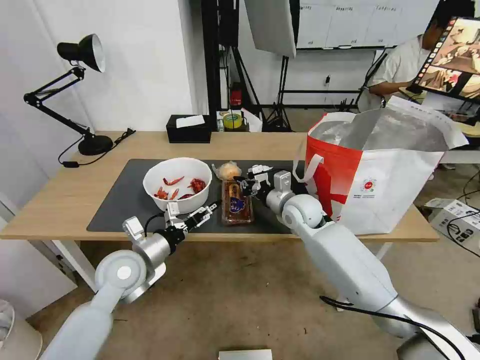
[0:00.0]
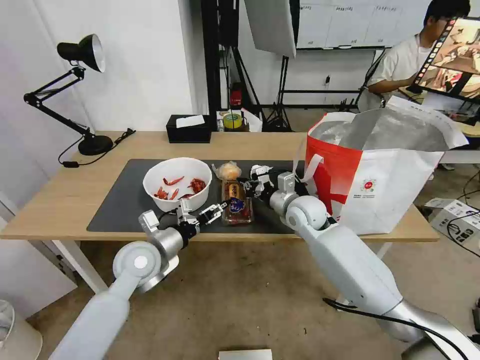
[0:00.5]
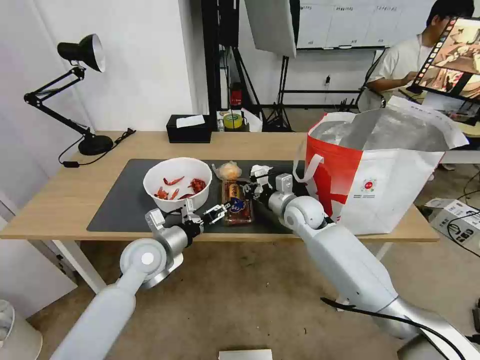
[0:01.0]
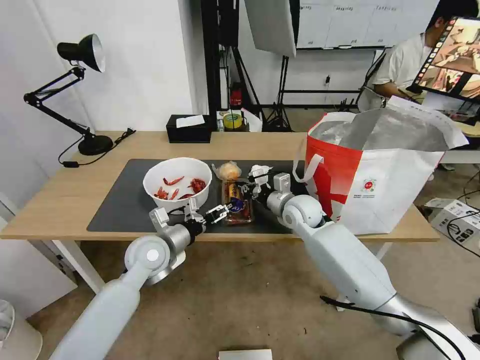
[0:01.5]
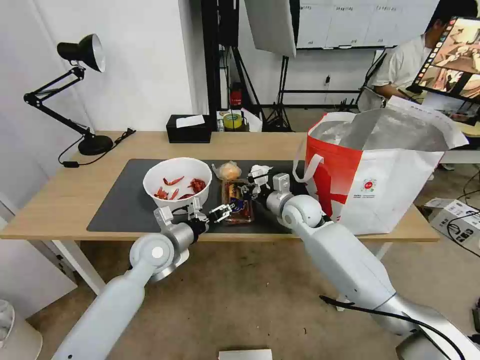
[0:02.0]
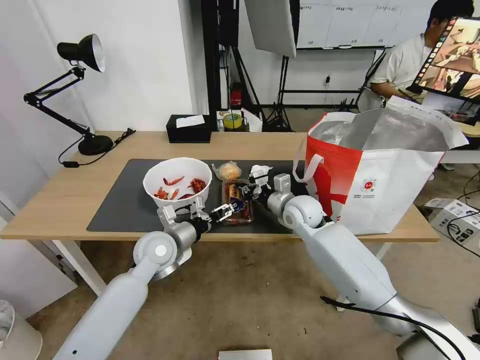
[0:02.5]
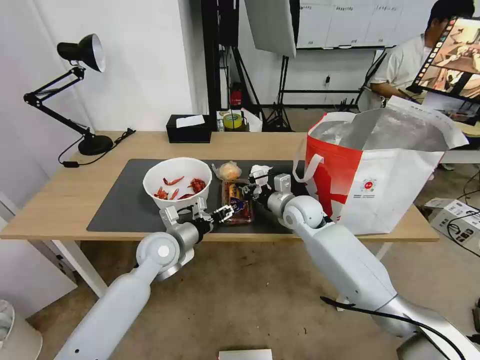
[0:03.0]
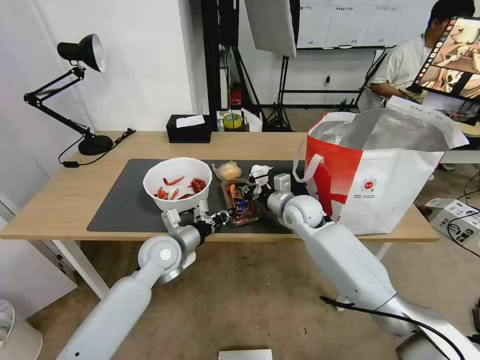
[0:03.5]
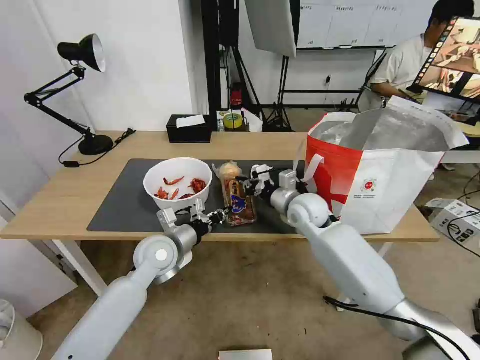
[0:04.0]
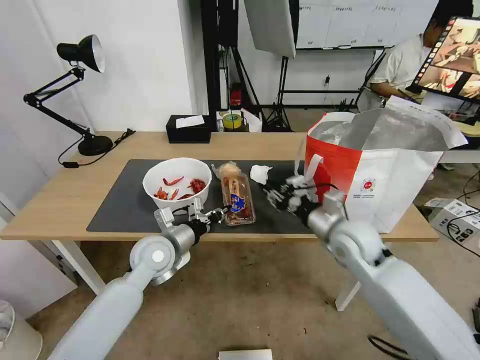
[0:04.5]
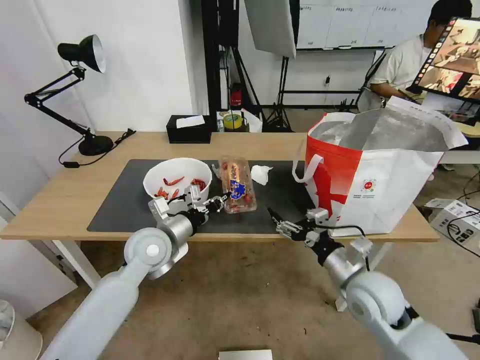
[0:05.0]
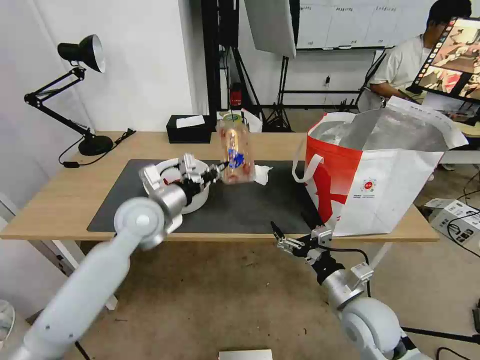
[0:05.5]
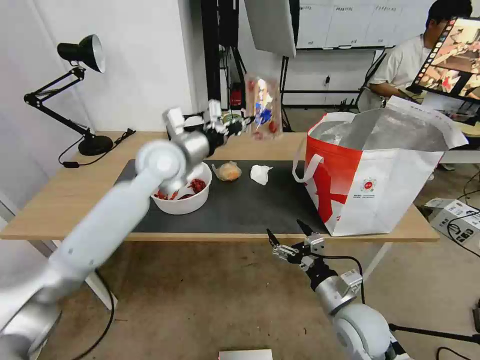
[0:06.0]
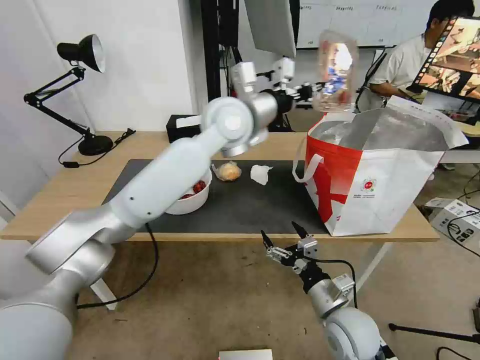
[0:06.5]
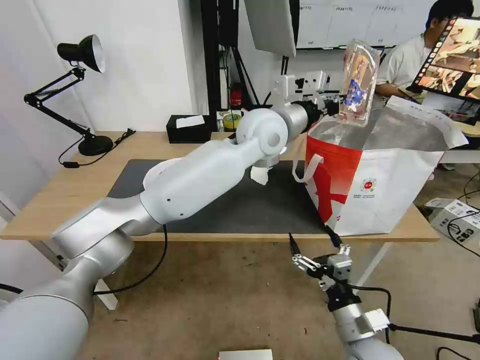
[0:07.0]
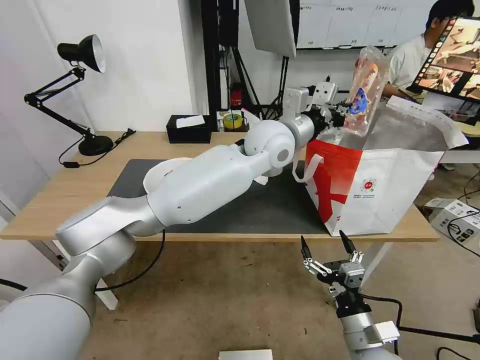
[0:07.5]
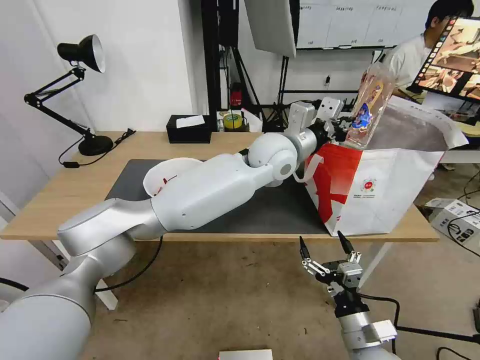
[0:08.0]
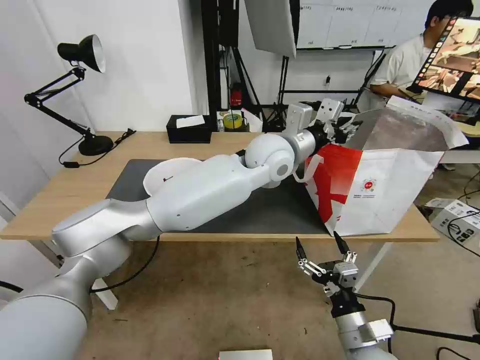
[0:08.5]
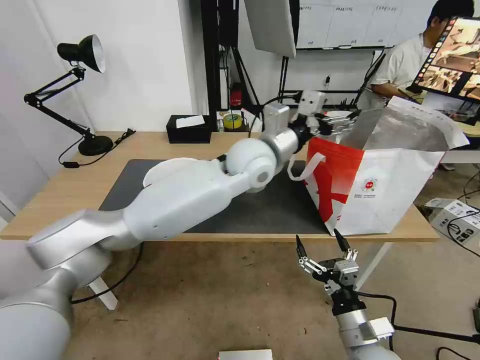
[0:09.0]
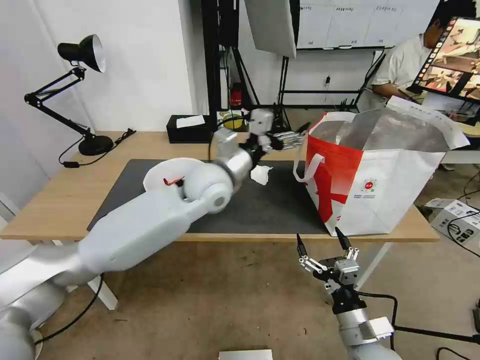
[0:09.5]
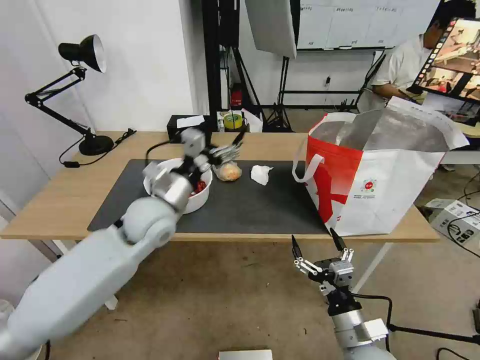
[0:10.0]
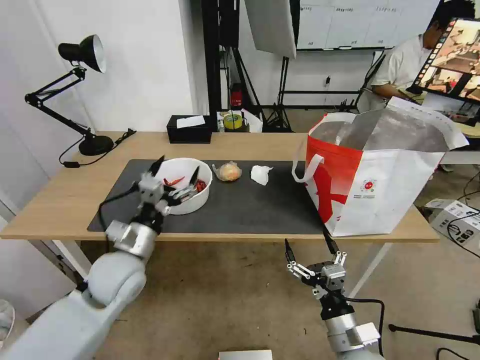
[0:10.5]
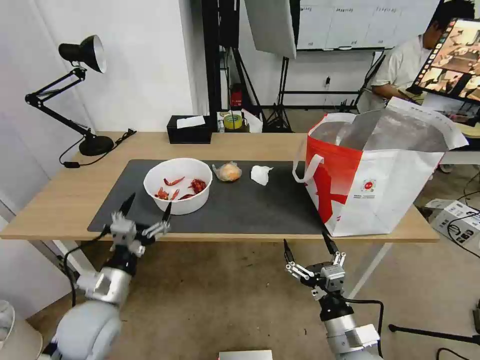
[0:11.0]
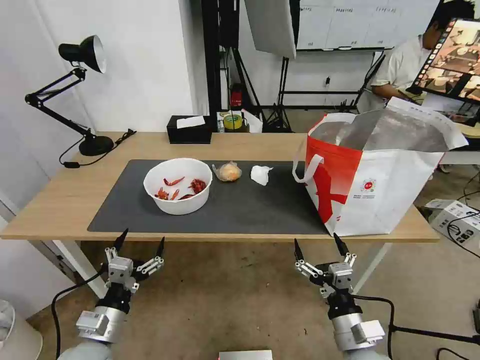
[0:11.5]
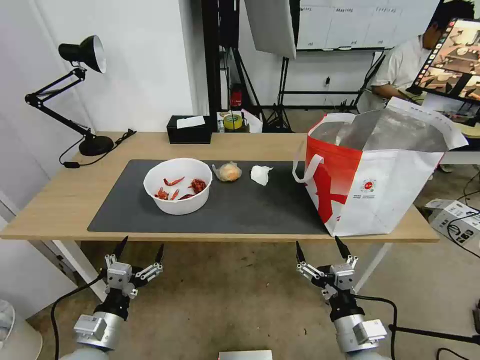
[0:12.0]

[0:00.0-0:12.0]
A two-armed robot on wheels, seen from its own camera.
Task of the whole recording: Pick up the trash from the table and place it into the takeout bag.
0:00.0 to 0:02.0: The left gripper heads forward, covering some 5 cm.
0:02.0 to 0:04.0: The left gripper closes.
0:04.0 to 0:06.0: The right gripper goes roughly 25 cm backward, and opens up. The left gripper travels upward and forward by roughly 20 cm.
0:06.0 to 0:08.0: The left gripper shifts some 20 cm to the right; the right gripper goes about 5 cm backward.
0:08.0 to 0:10.0: The left gripper moves to the left and backward, about 25 cm, and opens.
0:10.0 to 0:12.0: The left gripper travels backward, downward and to the left by approximately 30 cm.

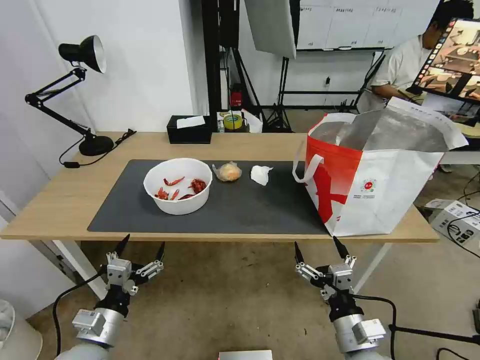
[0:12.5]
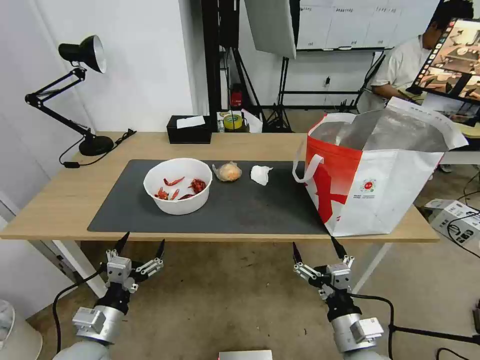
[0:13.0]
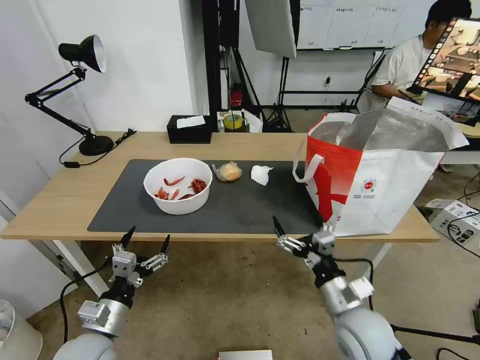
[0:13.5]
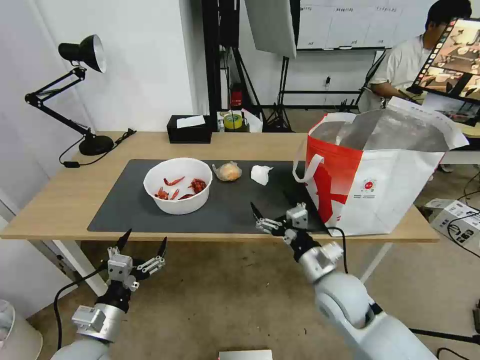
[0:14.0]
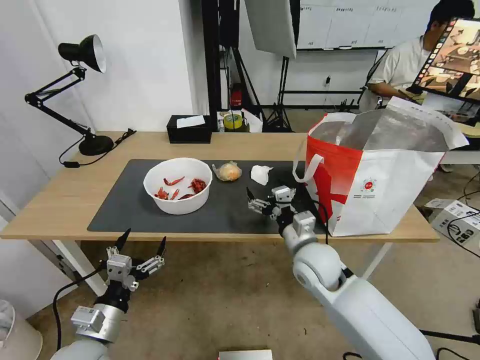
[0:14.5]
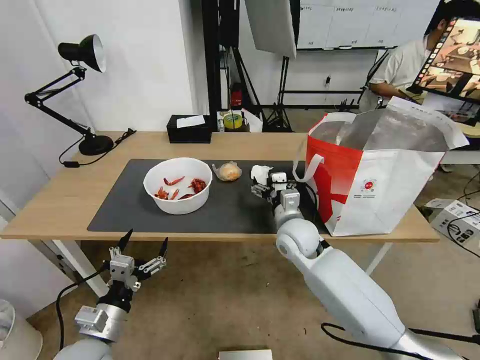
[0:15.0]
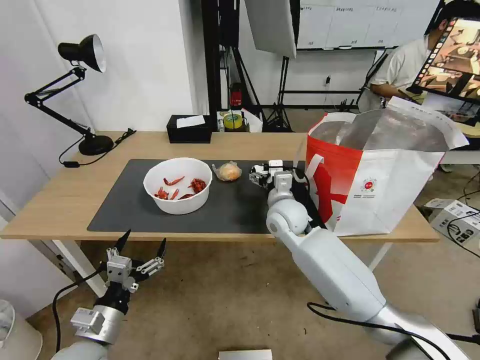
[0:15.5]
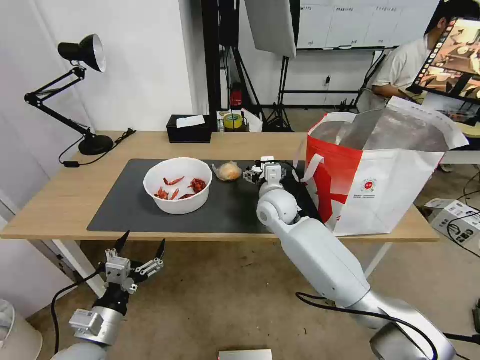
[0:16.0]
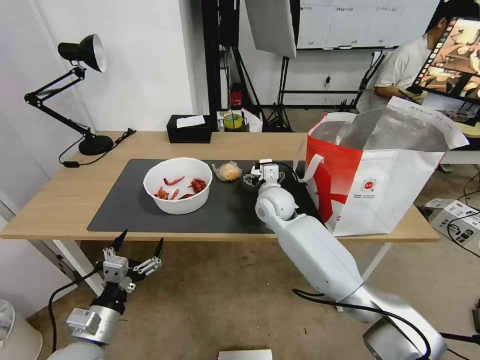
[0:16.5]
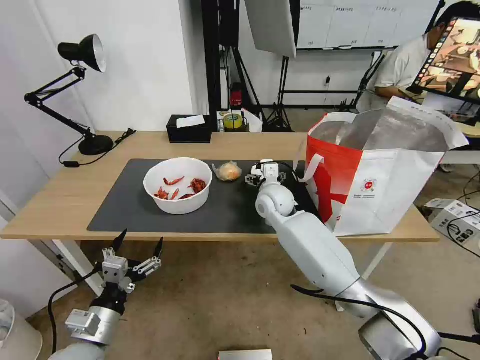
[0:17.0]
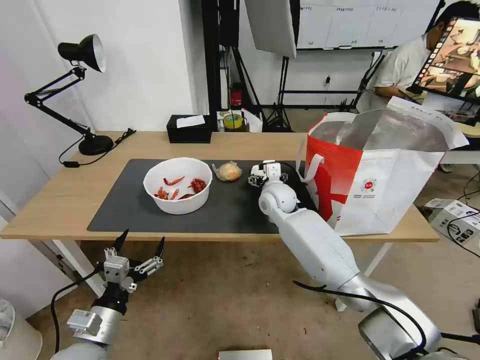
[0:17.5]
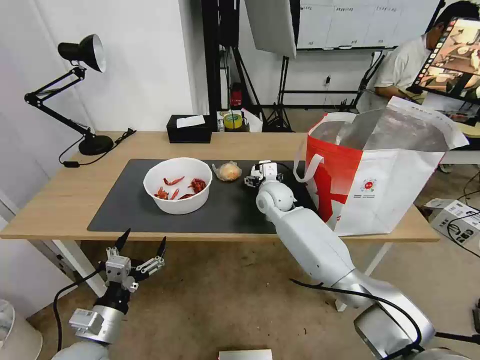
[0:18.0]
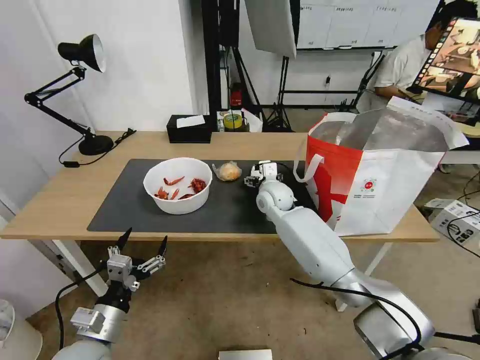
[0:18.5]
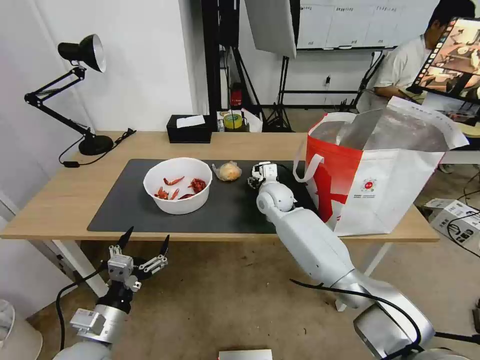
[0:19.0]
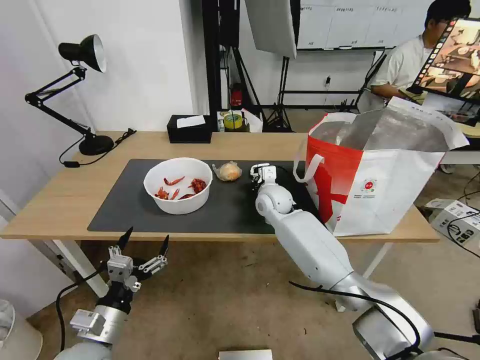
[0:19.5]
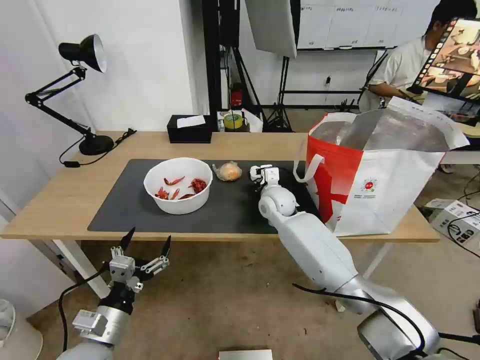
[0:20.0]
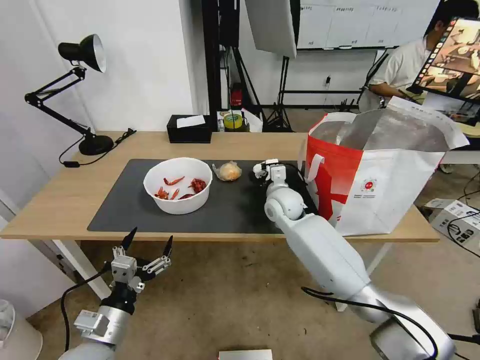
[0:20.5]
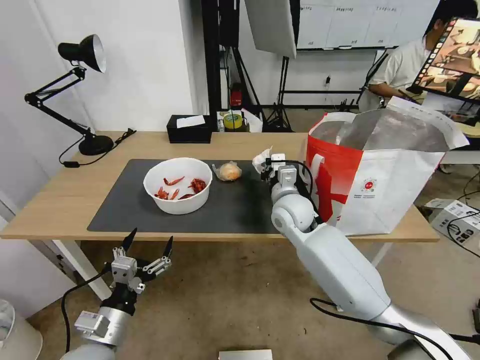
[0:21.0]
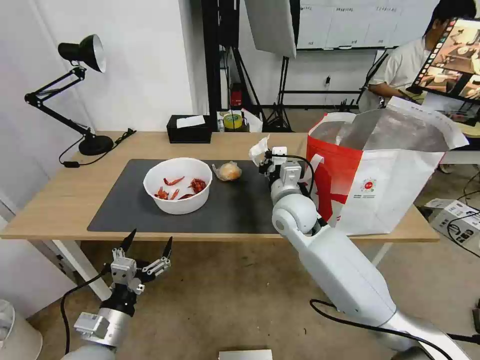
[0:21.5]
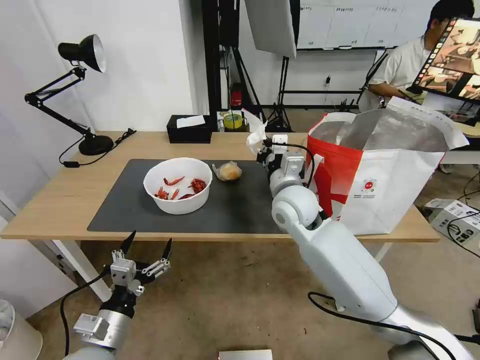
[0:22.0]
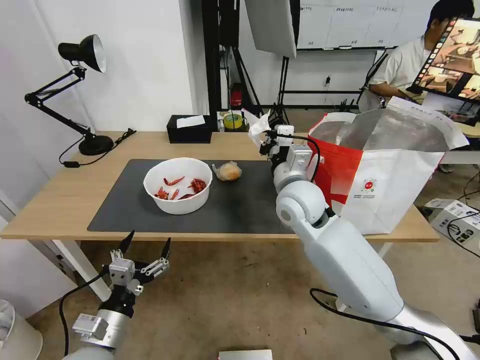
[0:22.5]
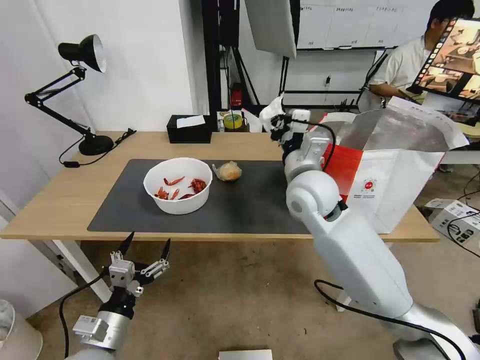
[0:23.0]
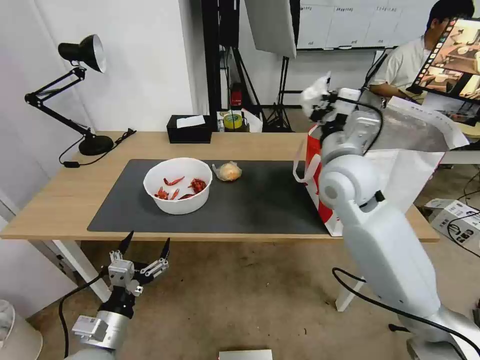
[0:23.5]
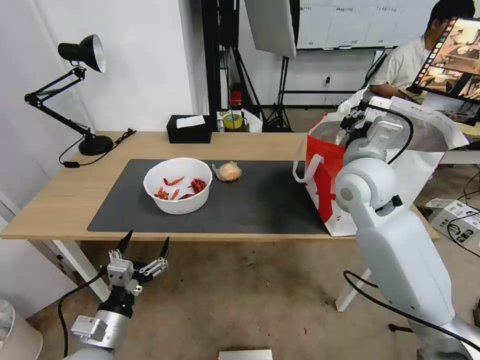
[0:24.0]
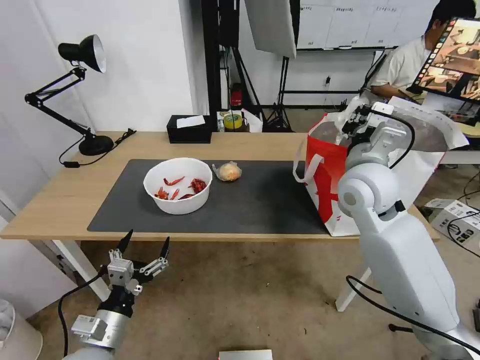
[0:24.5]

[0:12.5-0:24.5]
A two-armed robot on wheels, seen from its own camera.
Task of the whole recording: Pick up the trash from the table and place it into the takeout bag.
0:12.5 to 0:14.5: The right gripper is displaced forward by about 20 cm.
0:14.5 to 0:16.5: The right gripper goes roughly 20 cm forward and to the left.
0:16.5 to 0:18.5: The grippers move only a little.
0:18.5 to 0:20.5: The right gripper closes.
0:20.5 to 0:22.5: The right gripper travels upward and backward by roughly 15 cm.
0:22.5 to 0:24.5: The right gripper travels to the right and upward by approximately 10 cm.

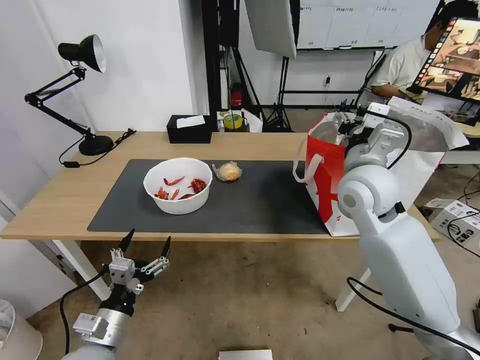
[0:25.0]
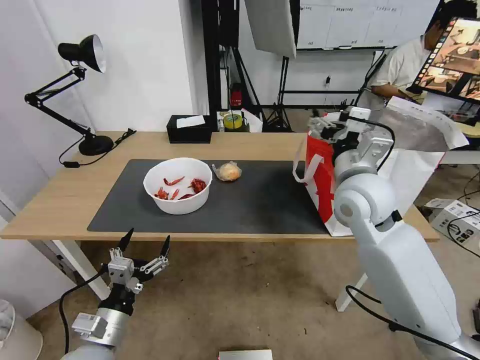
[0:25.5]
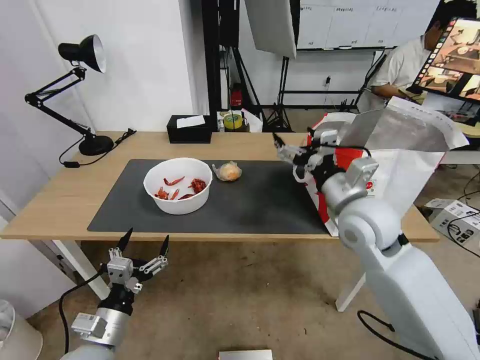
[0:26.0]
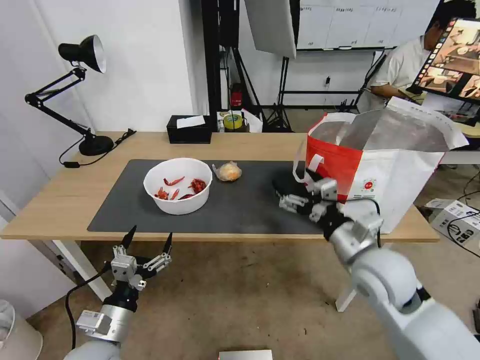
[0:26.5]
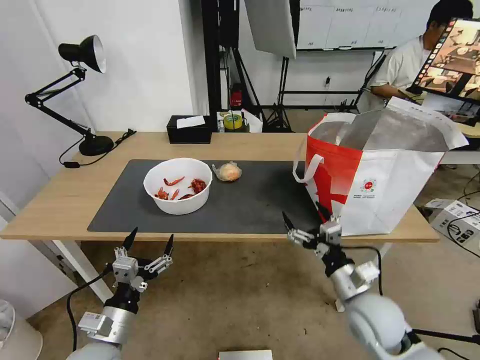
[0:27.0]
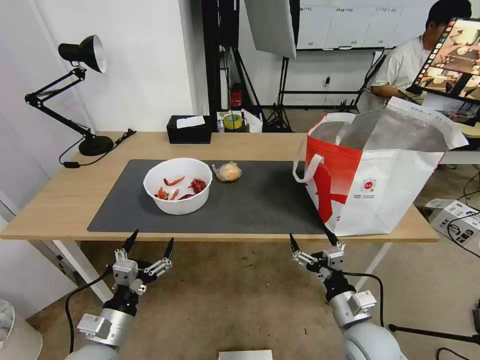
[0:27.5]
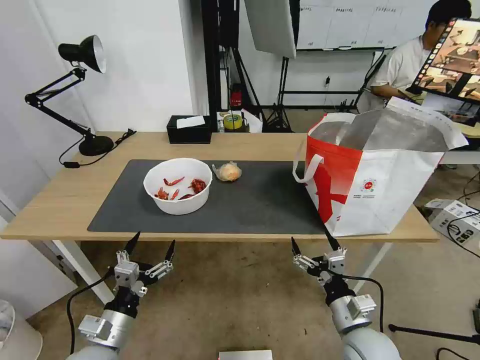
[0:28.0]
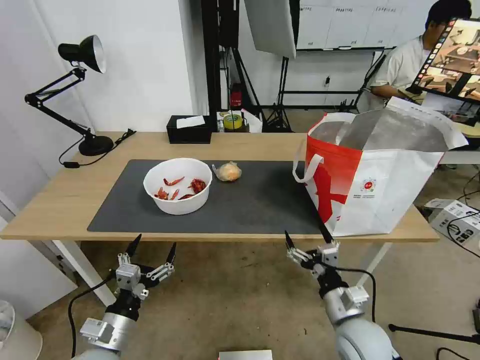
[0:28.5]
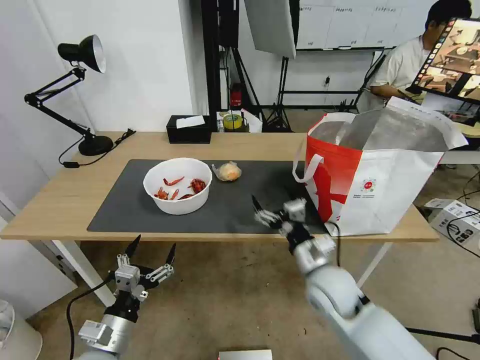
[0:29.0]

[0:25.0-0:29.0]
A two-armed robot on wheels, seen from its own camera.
Task of the whole recording: Pick up the trash from the table and place it into the takeout bag.
0:25.0 to 0:27.0: The right gripper goes some 25 cm downward and backward.
0:27.0 to 0:29.0: The right gripper travels to the left by approximately 5 cm.
